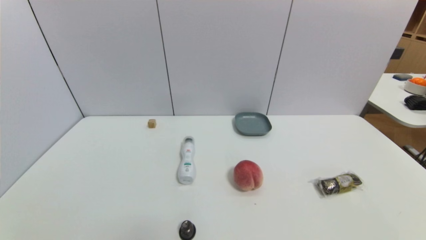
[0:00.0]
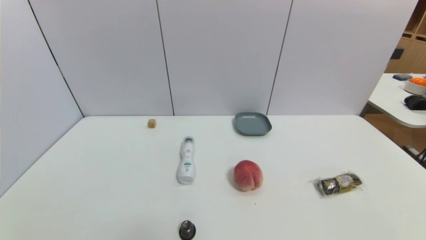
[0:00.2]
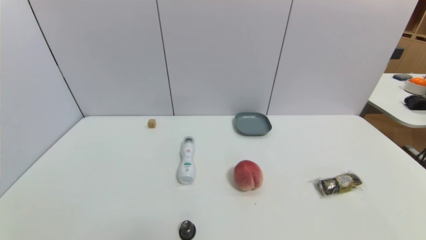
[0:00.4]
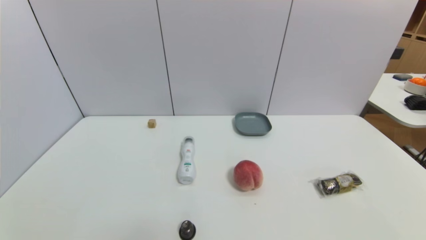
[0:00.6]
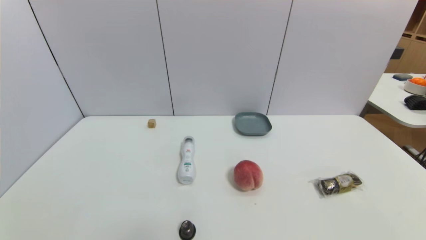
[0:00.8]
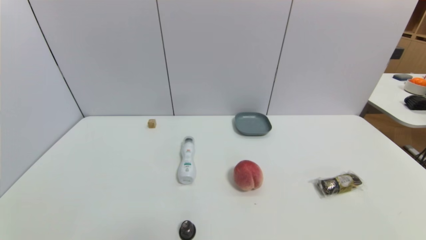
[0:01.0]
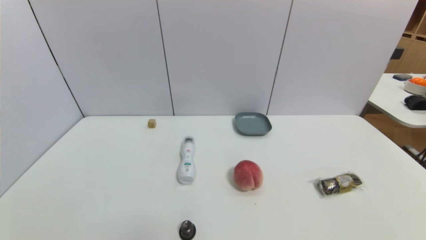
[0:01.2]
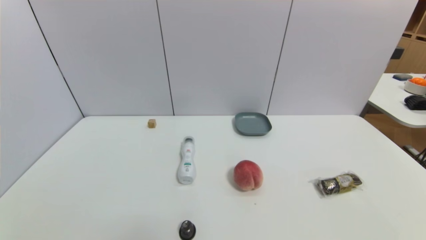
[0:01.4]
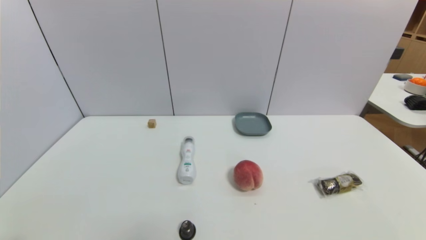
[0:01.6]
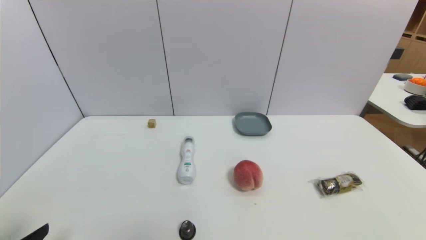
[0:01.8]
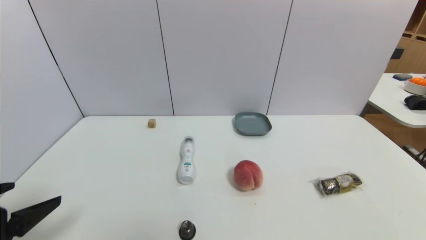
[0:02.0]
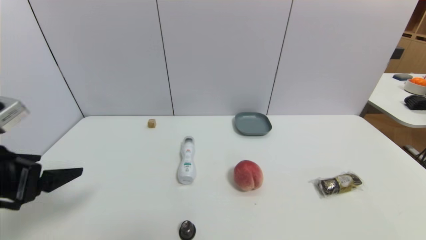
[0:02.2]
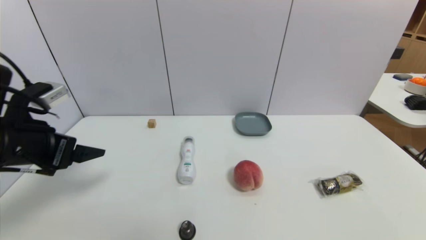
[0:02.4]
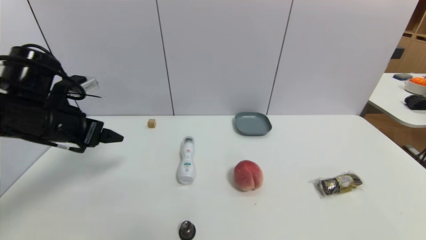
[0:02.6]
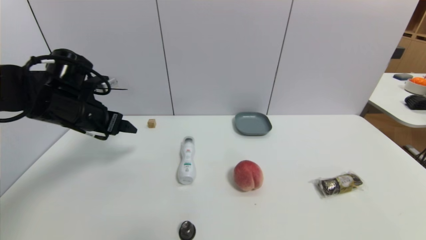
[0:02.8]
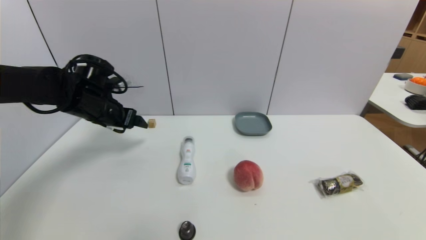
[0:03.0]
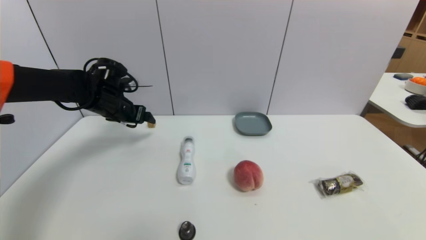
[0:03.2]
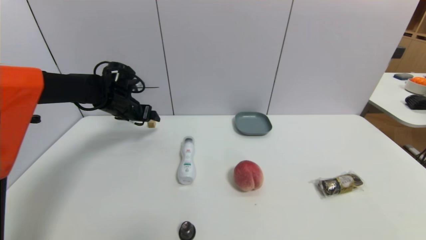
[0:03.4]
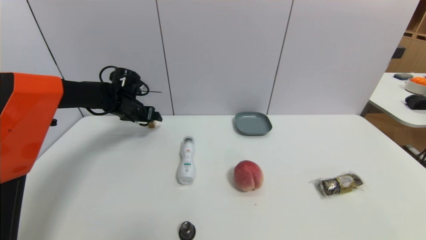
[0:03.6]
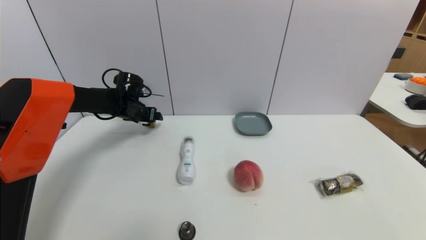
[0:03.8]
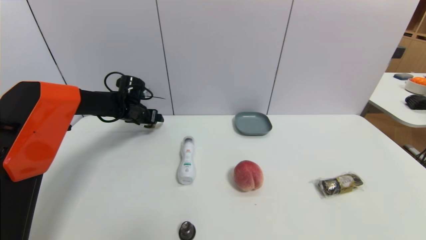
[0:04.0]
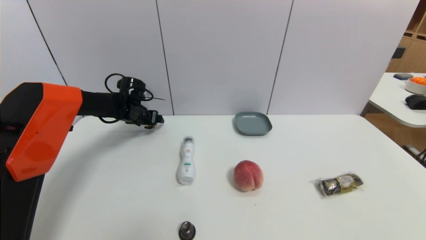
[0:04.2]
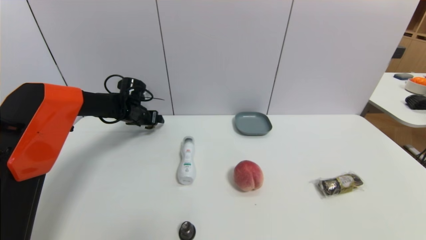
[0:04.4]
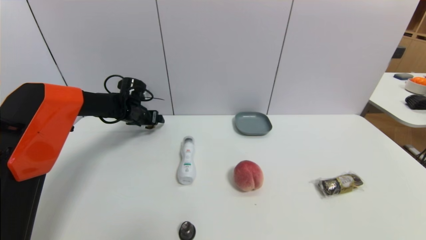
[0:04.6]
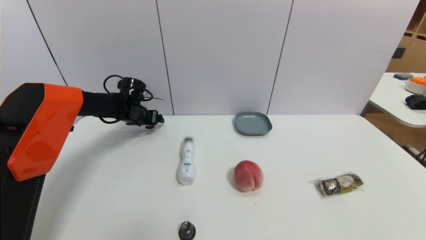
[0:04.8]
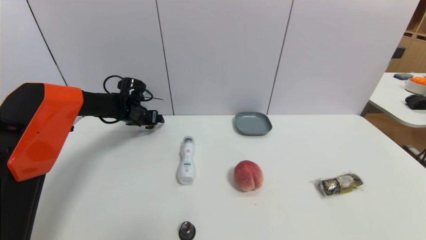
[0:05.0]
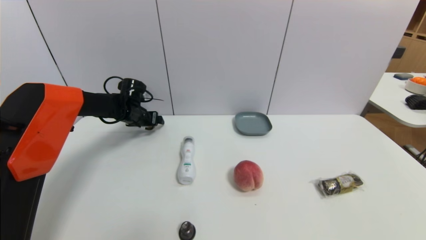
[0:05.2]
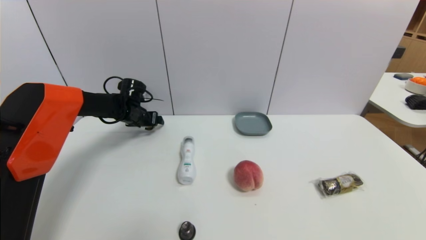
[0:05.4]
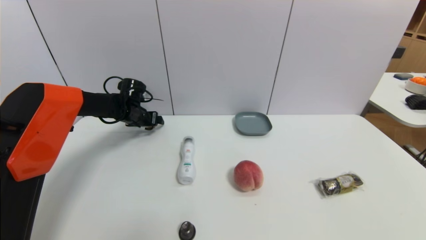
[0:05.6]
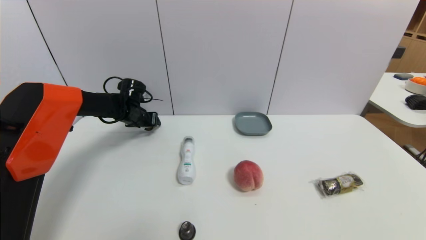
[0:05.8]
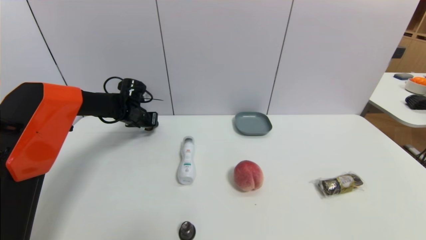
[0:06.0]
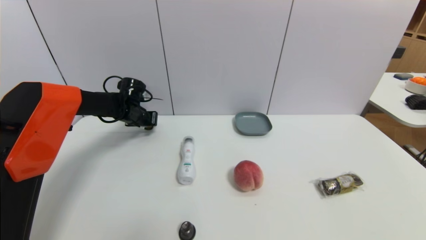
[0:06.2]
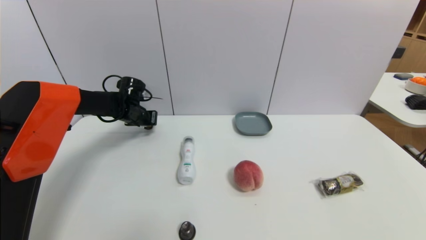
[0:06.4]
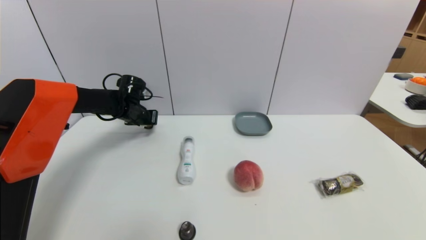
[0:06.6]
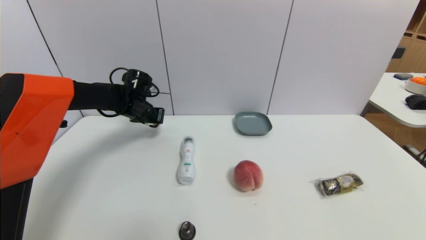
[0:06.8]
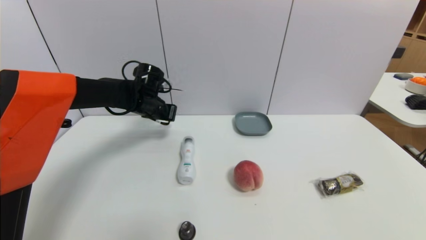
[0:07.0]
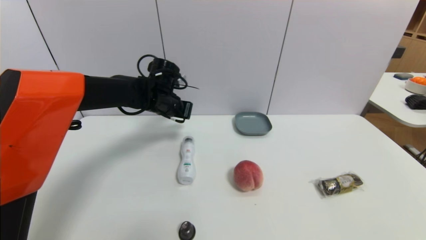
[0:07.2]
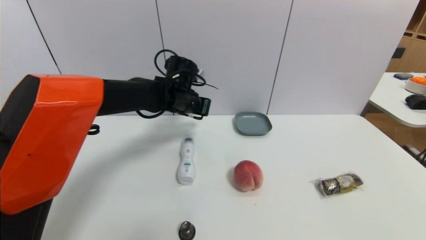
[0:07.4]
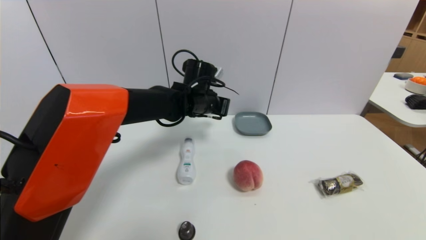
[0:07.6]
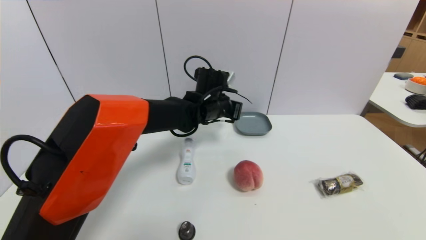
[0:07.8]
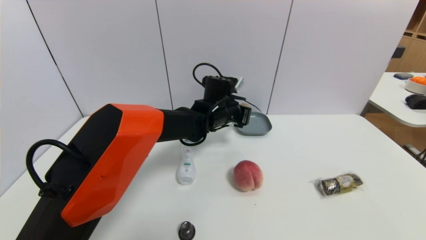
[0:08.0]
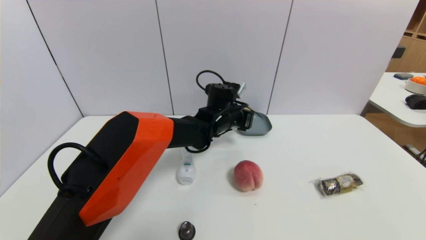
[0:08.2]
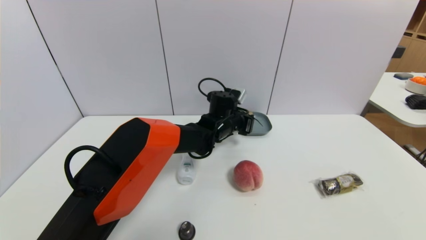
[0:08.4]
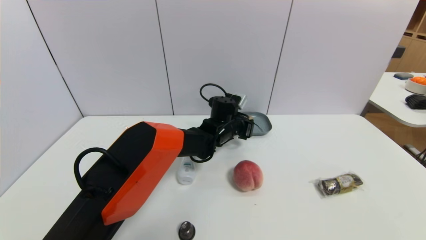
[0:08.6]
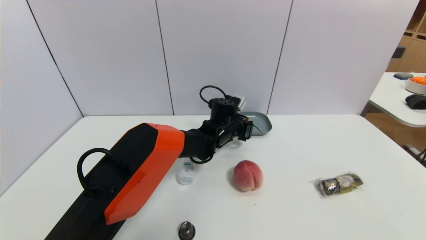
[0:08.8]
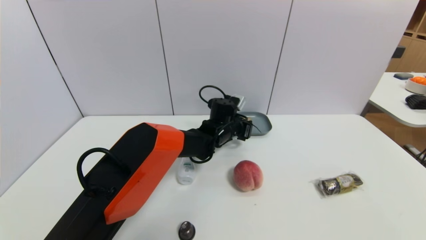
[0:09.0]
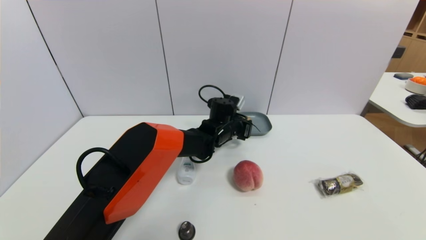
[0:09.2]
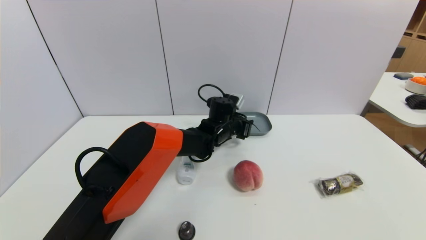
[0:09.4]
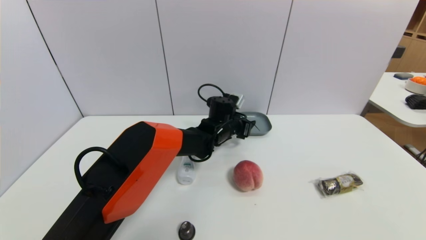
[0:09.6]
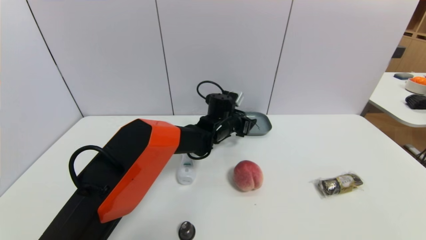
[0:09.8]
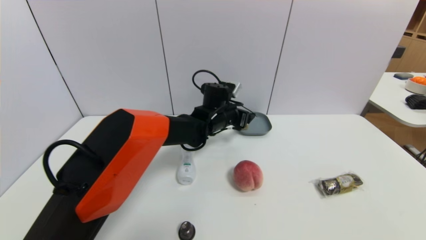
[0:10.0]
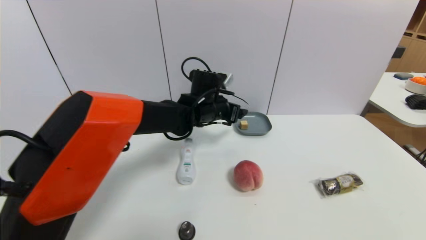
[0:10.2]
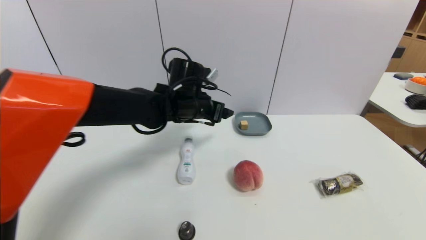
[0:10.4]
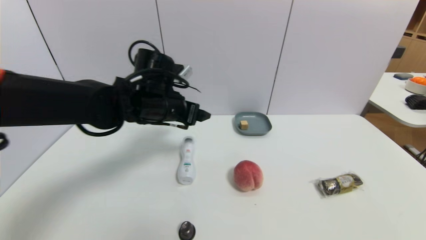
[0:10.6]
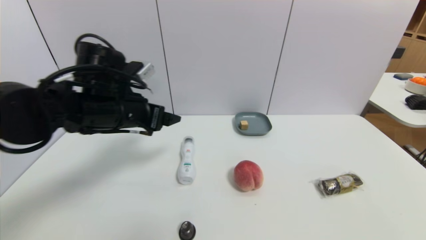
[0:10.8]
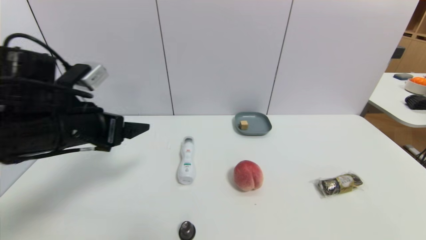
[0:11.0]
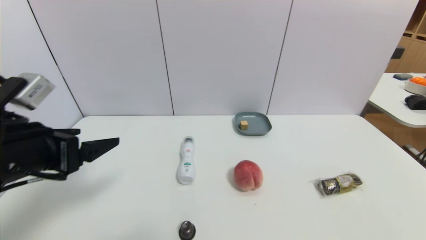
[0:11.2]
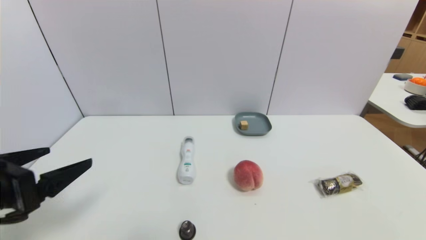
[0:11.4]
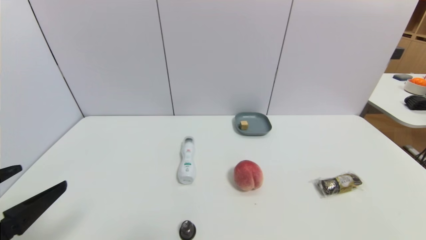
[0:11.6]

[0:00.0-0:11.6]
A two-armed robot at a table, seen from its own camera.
Task of the whole recording: use a gripper to pick the target object and place on the dish.
Step, 0.0 to 6.2 s: Grasp the square wooden block with the left gripper.
Step, 6.4 to 10.0 s: Place the square wooden block on the dish with the left gripper.
1.4 to 2.8 s: The left gripper travels forward by some 35 cm.
2.8 to 4.4 s: The left gripper goes some 20 cm forward and downward.
4.4 to 5.8 s: The left gripper closes its fingers.
5.8 to 7.2 s: The left gripper moves to the right, upward and backward, roughly 15 cm, and closes its fingers.
7.2 to 8.8 s: The left gripper goes roughly 20 cm to the right and downward.
8.8 to 10.2 s: The left gripper moves upward and to the left, about 10 cm, and opens up.
10.2 to 11.6 s: The left gripper travels backward and to the left by some 40 cm.

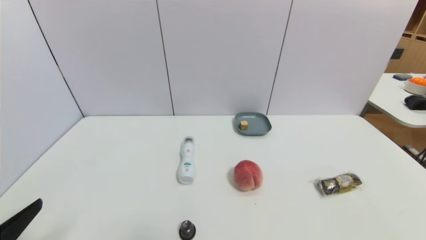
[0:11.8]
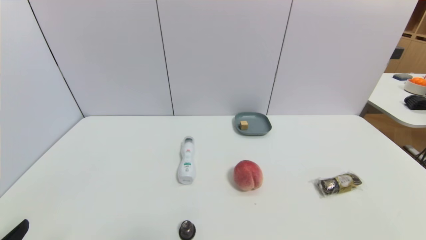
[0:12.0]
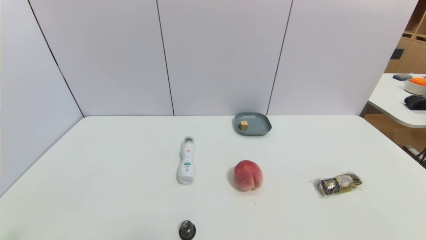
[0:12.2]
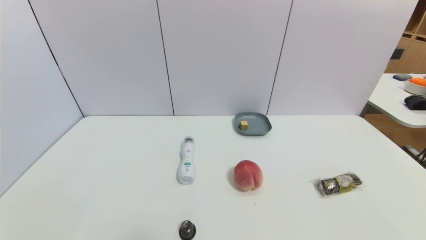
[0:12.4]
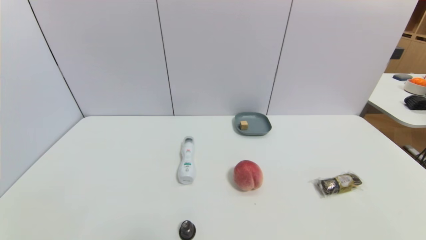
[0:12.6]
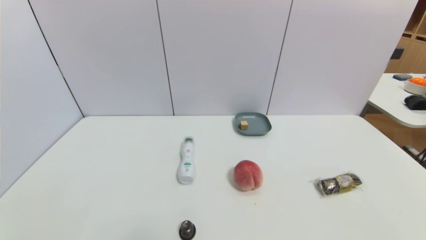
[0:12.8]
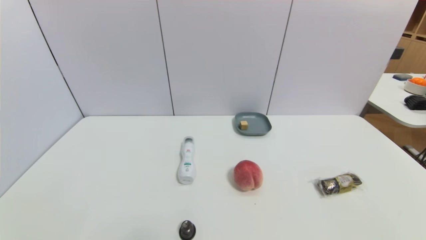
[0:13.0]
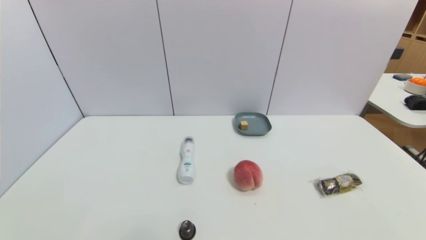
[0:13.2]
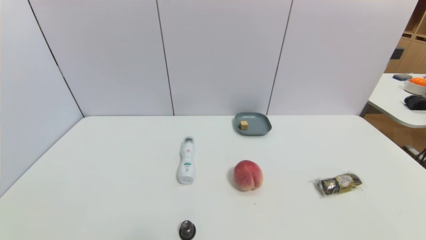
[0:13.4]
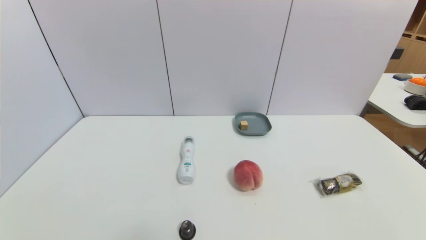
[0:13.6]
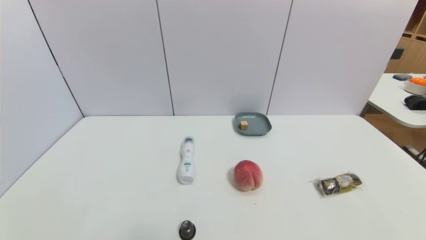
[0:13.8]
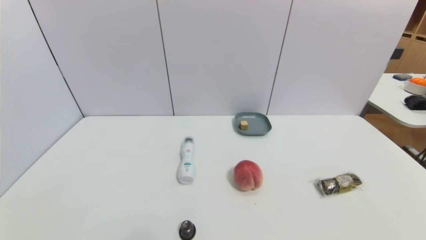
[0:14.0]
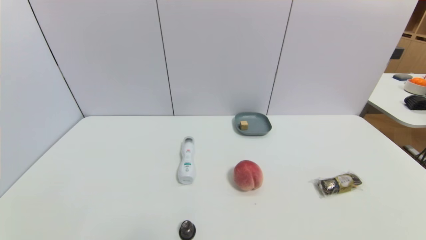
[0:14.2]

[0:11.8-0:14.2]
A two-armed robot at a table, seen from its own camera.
Task of the whole recording: use a gripper to pick the target object and place on the dish.
11.8 to 13.0 s: The left gripper shifts about 10 cm downward.
13.0 to 14.2 s: The two grippers keep their place.

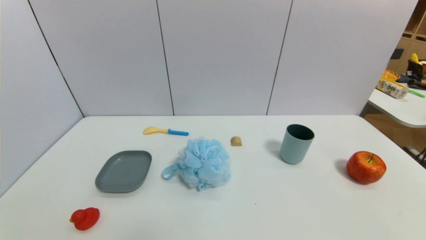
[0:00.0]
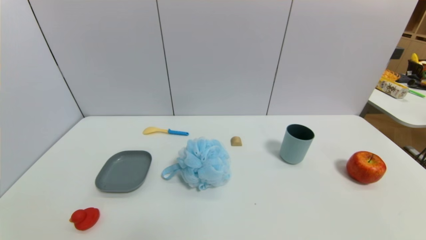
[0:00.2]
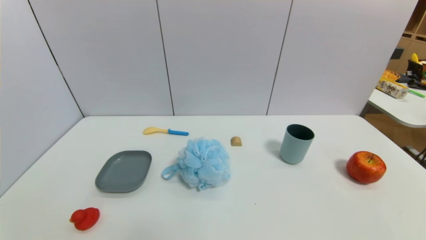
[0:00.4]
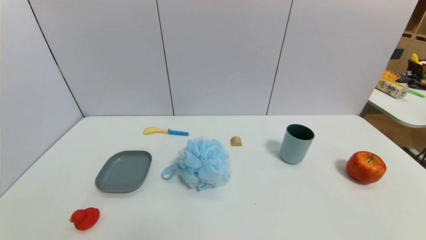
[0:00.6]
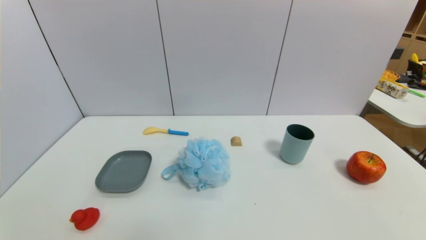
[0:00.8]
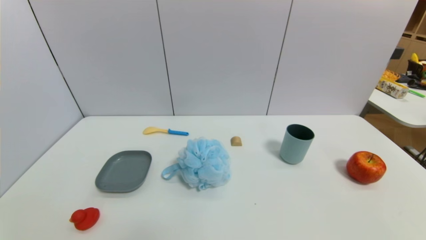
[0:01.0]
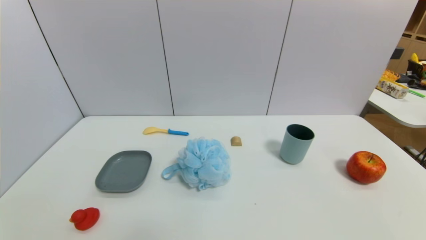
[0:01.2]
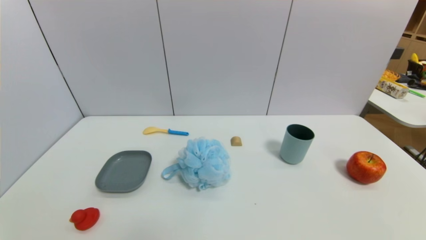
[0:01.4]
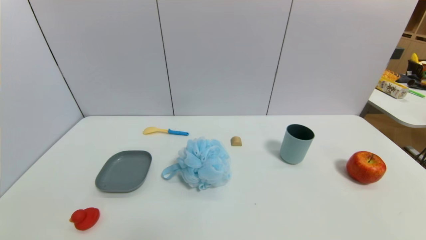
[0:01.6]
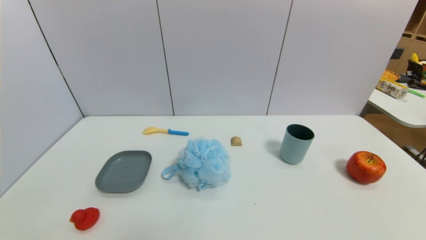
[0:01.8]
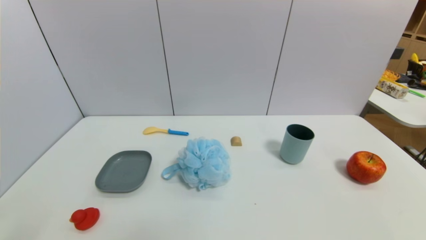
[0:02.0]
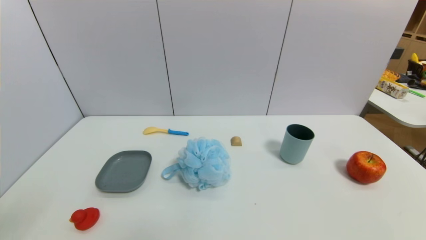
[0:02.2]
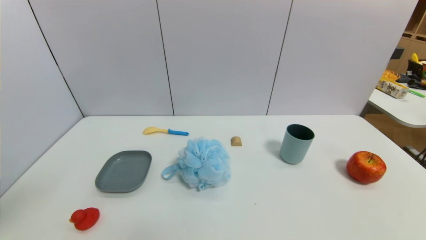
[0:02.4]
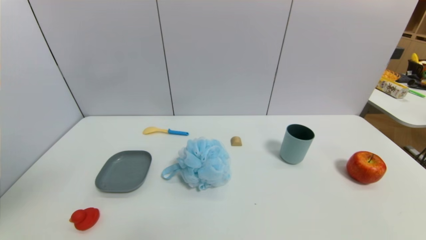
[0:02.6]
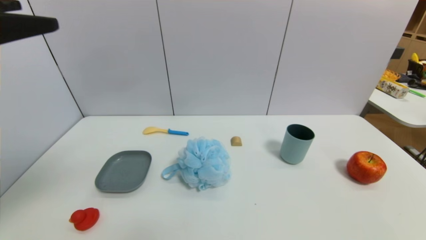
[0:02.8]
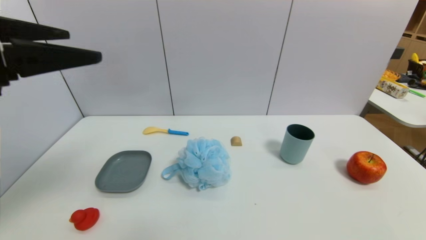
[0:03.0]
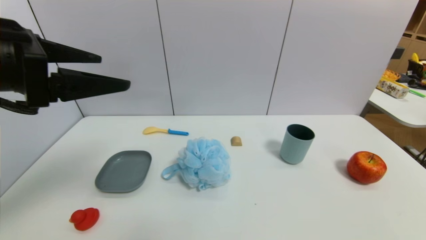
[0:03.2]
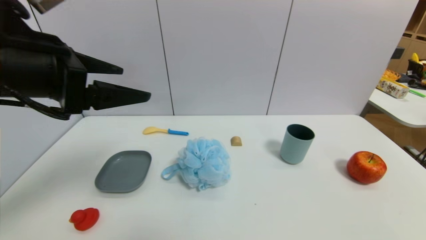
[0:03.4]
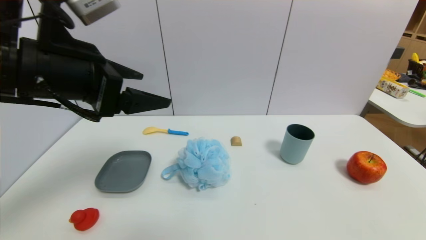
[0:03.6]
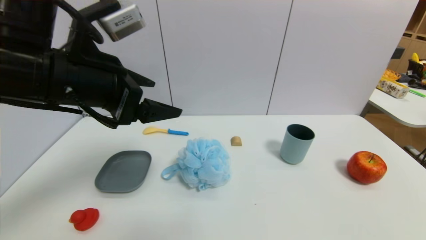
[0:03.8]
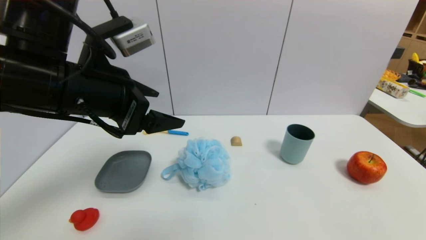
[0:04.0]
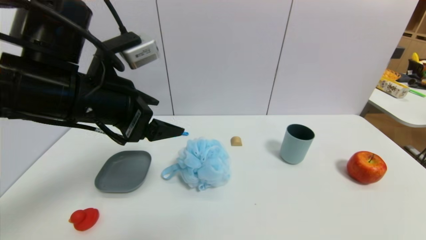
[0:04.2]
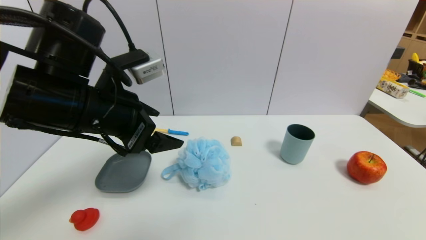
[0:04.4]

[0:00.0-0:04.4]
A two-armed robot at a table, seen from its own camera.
Task of the whole recording: use a gripper to pick the target object and place on the dish.
1.4 to 3.0 s: The left gripper travels upward and forward by some 35 cm.
3.0 to 4.4 s: The left gripper is displaced to the right, downward and forward by roughly 15 cm.
